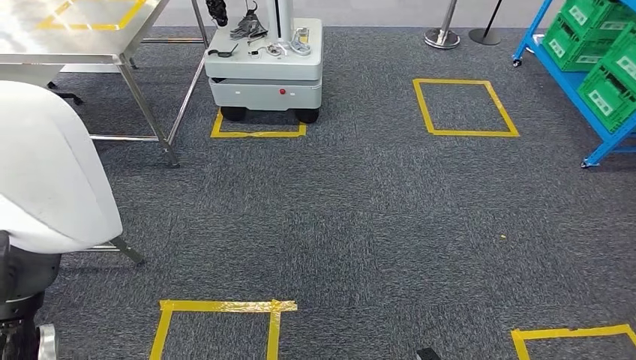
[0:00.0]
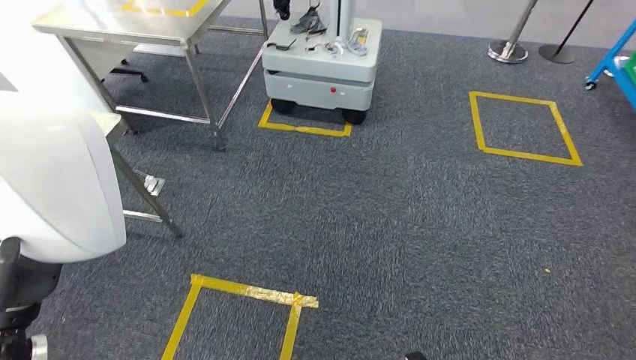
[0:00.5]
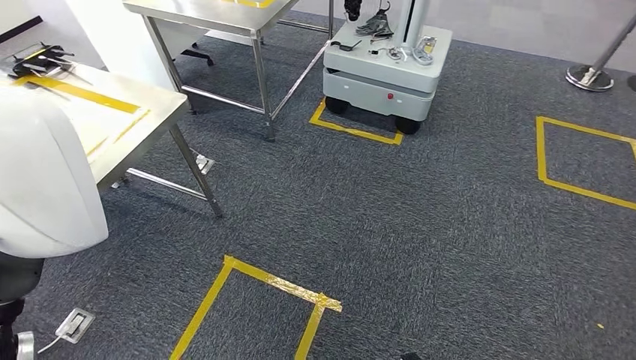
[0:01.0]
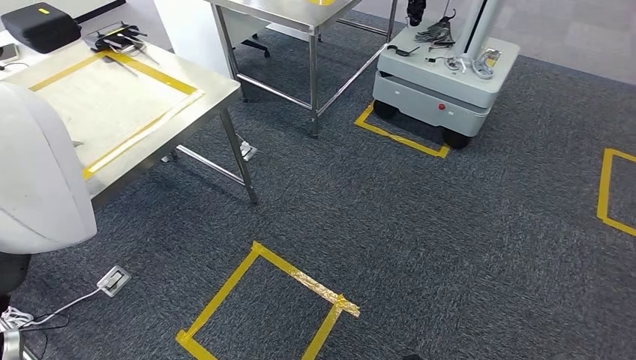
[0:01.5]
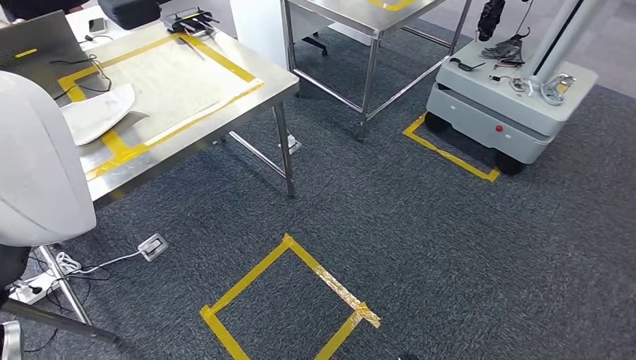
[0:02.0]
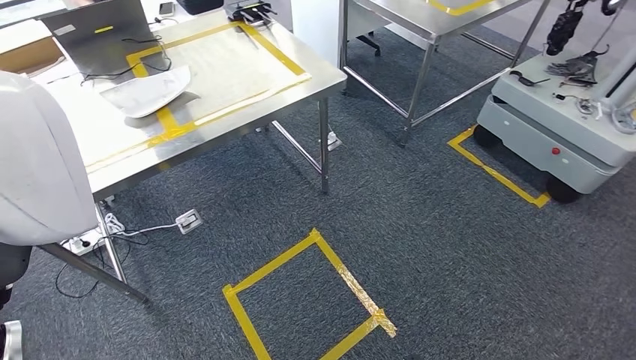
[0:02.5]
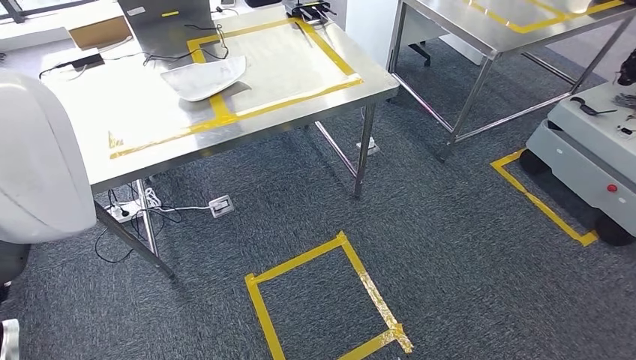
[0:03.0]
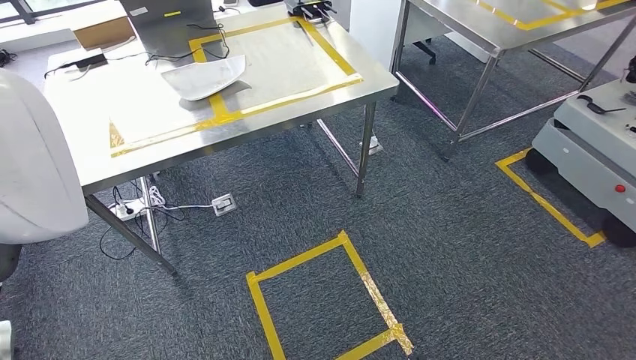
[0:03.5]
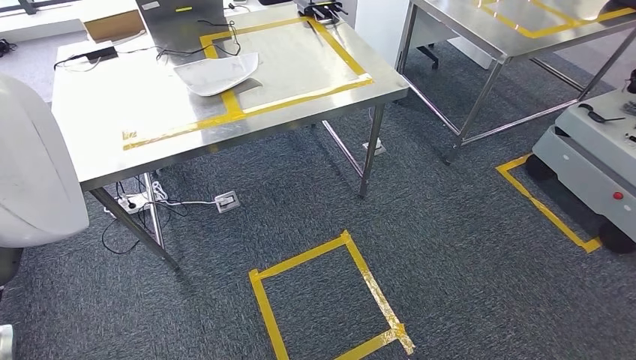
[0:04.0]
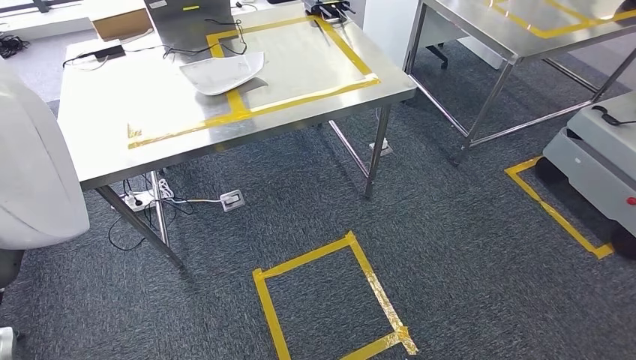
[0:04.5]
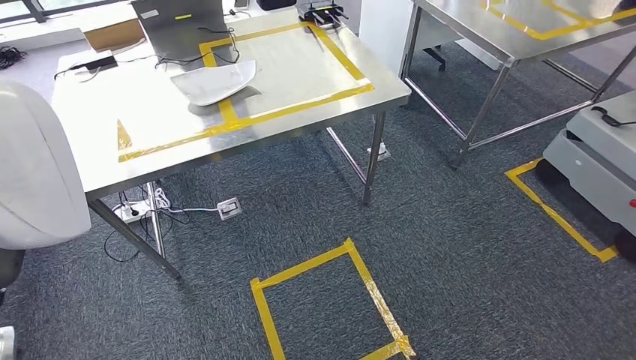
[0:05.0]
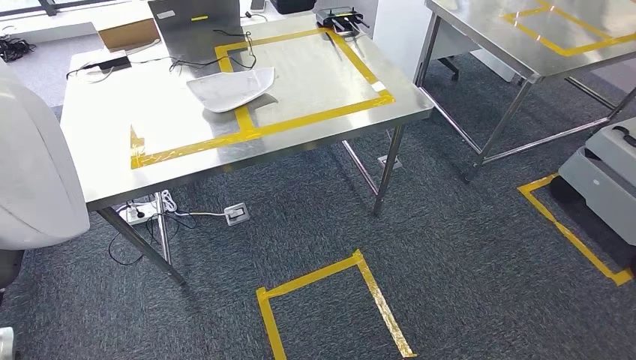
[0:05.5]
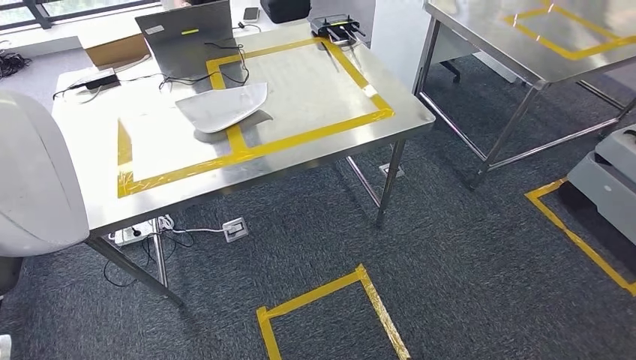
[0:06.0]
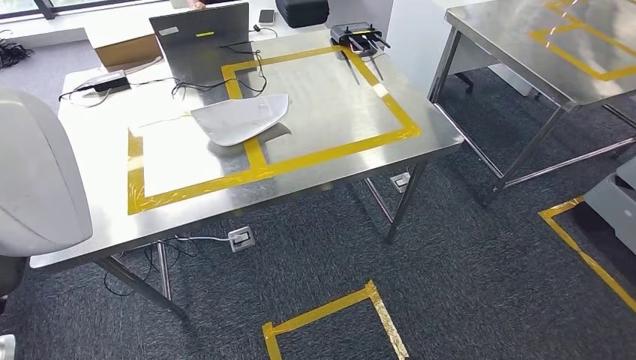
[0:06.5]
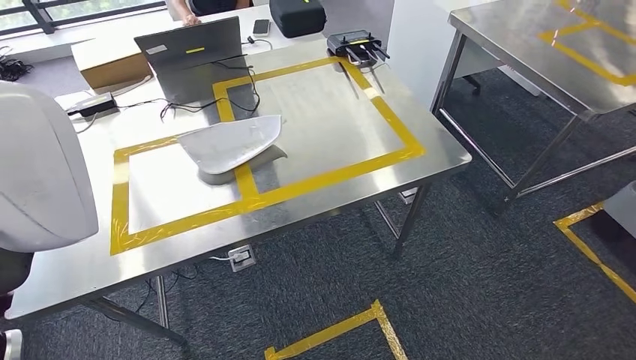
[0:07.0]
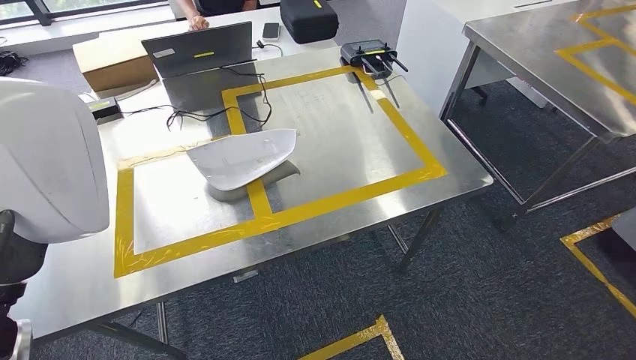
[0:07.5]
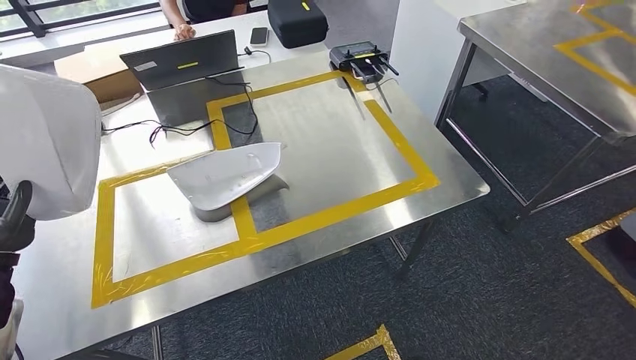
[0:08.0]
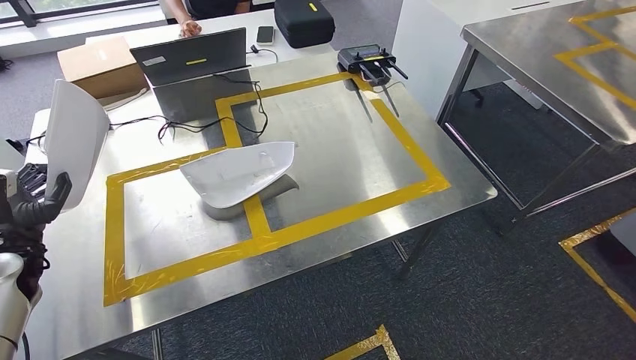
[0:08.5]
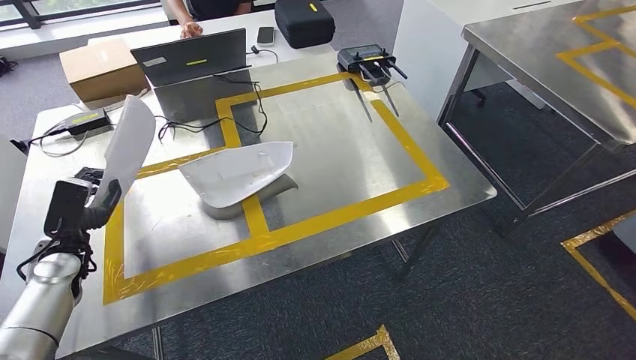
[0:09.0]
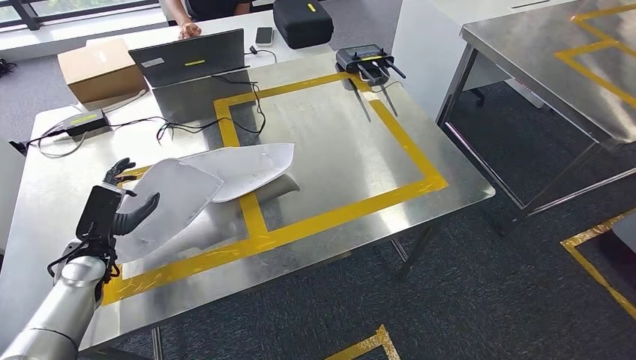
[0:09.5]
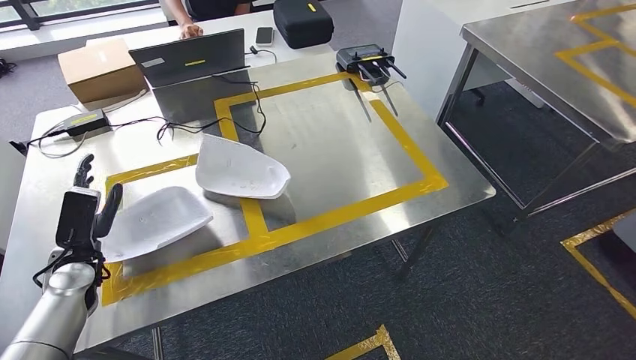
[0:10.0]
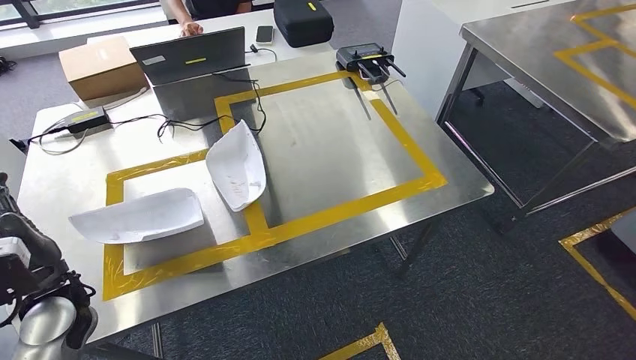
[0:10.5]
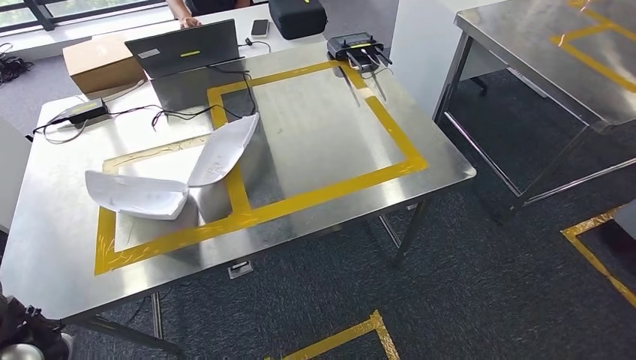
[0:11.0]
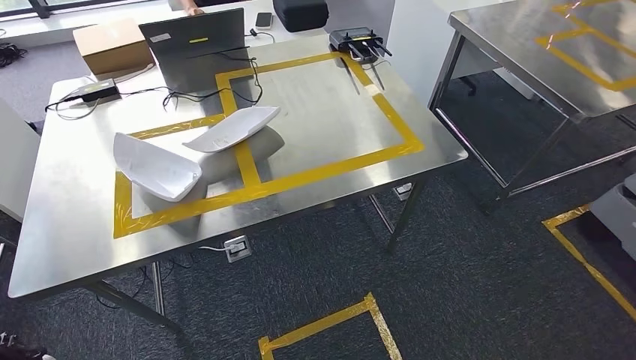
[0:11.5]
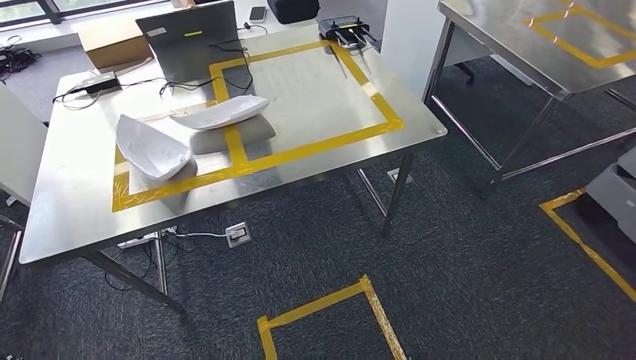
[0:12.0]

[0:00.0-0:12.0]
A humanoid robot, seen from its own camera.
Step, 0:00.0 to 0:05.0: Move the small parts to the workbench.
Step, 0:05.5 to 0:10.5: Insert the small parts into the corresponding slots on the workbench.

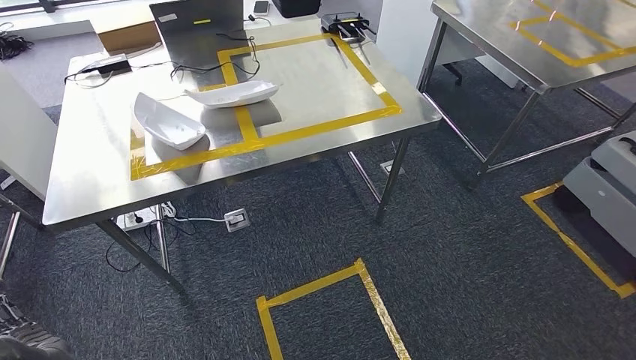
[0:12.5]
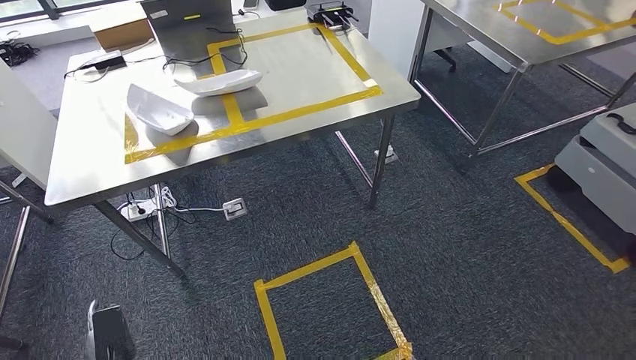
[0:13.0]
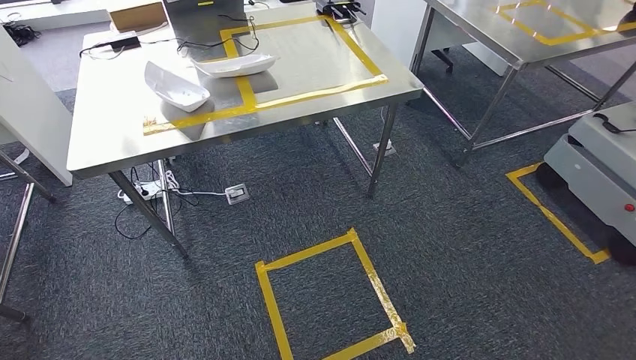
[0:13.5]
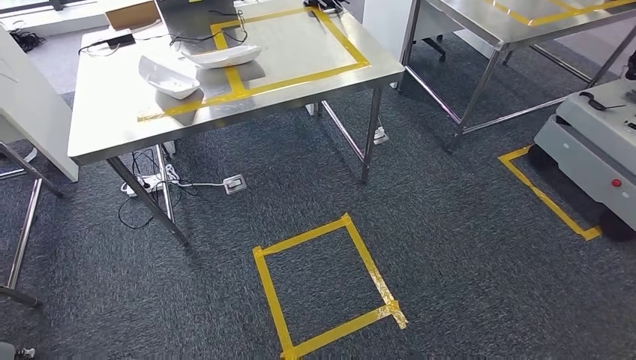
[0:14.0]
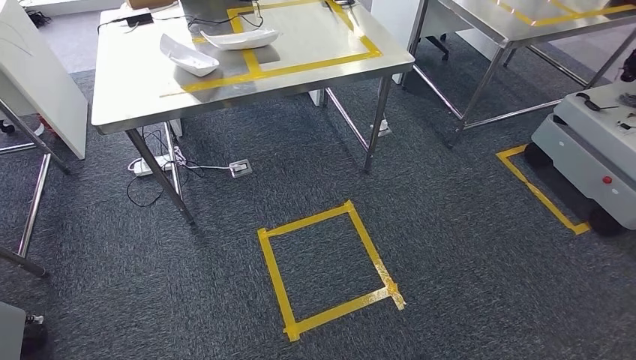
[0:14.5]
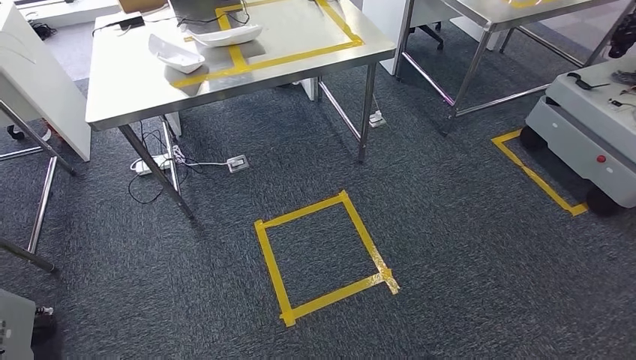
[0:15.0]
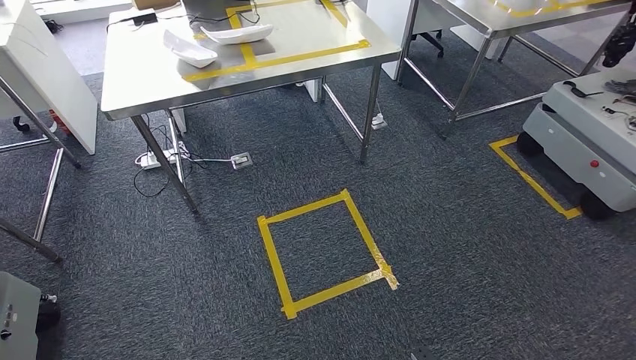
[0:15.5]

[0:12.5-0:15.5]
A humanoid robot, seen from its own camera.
Step, 0:12.5 to 0:15.5: Return to the initial position at the workbench.
